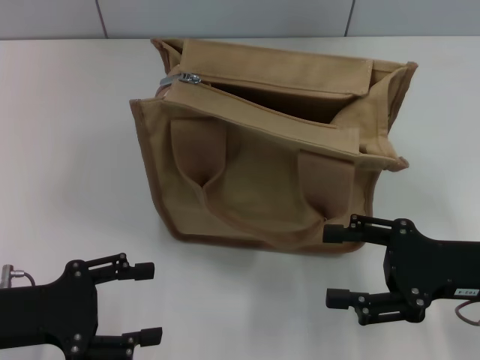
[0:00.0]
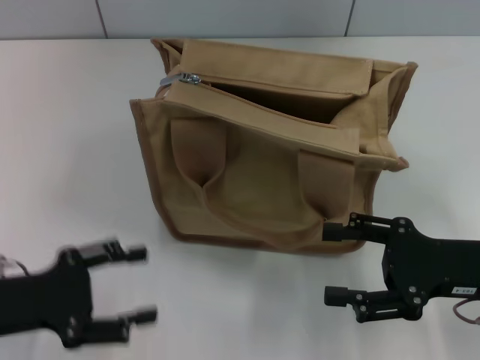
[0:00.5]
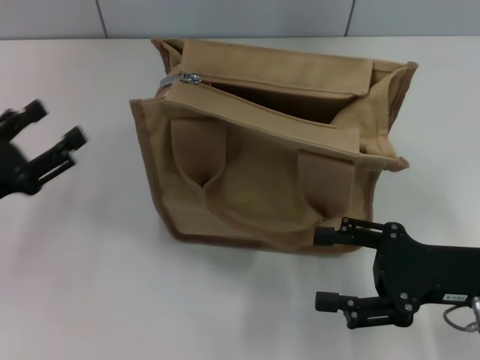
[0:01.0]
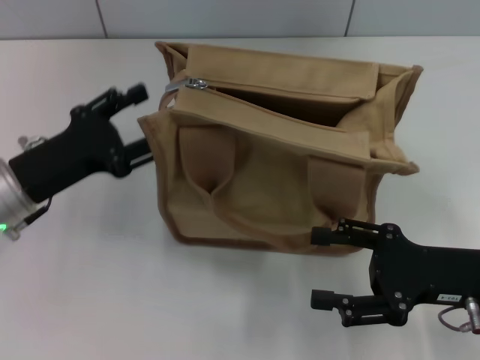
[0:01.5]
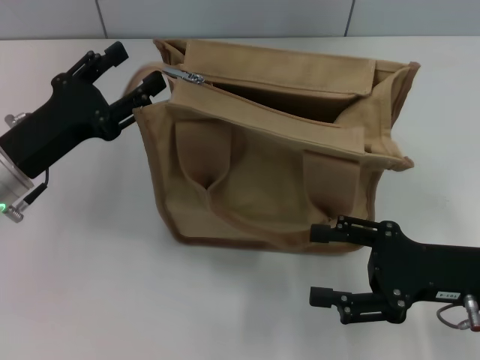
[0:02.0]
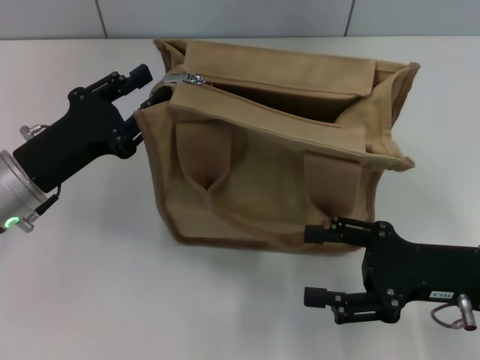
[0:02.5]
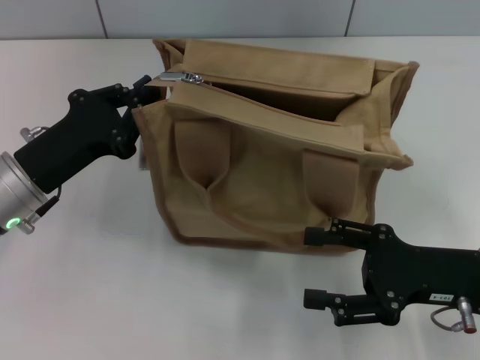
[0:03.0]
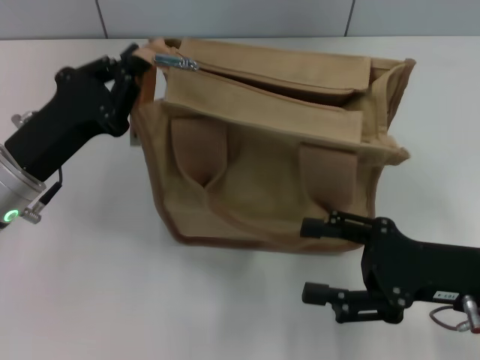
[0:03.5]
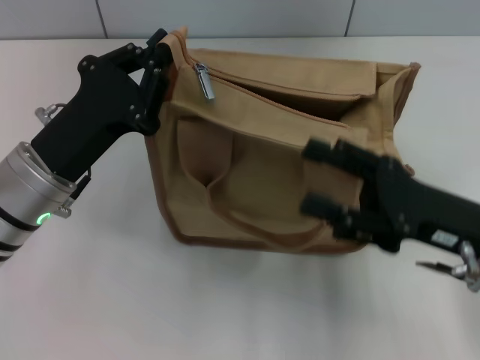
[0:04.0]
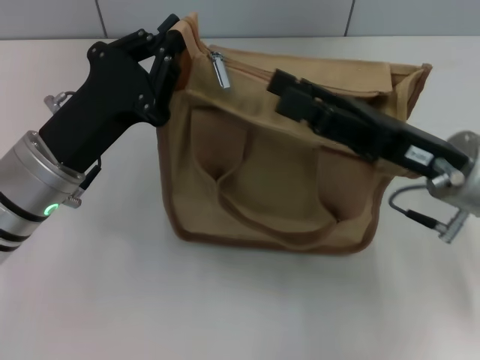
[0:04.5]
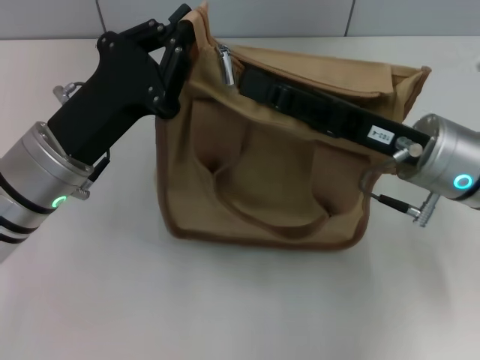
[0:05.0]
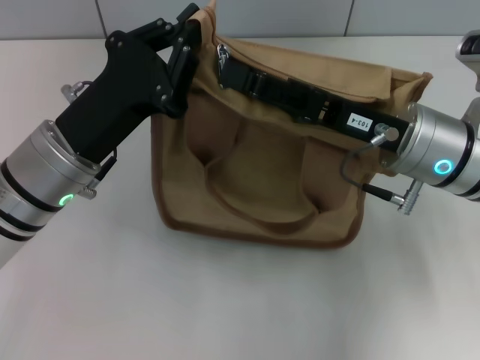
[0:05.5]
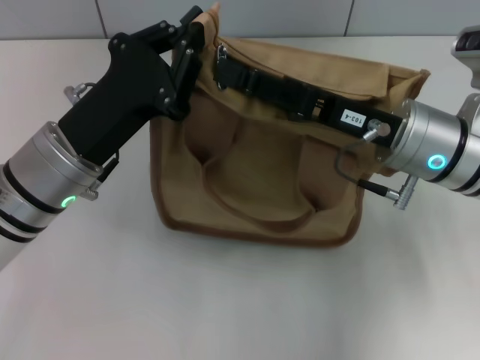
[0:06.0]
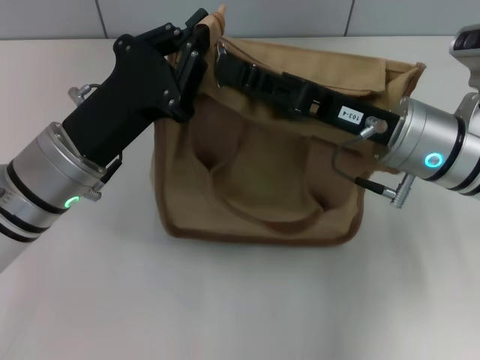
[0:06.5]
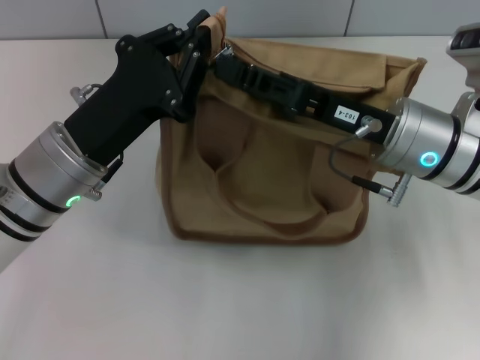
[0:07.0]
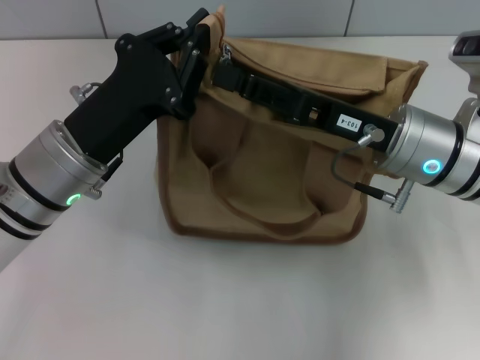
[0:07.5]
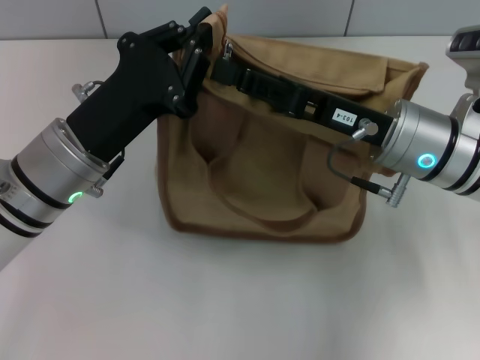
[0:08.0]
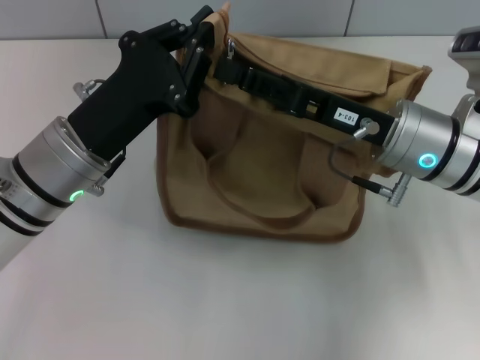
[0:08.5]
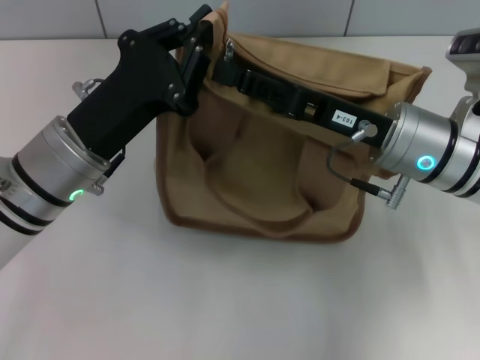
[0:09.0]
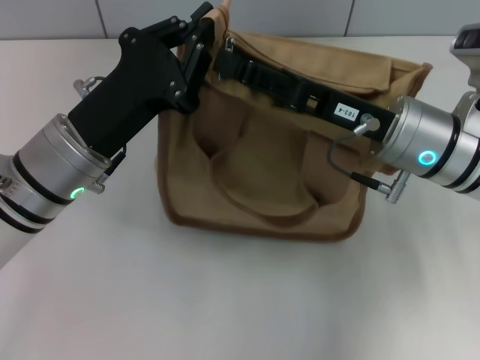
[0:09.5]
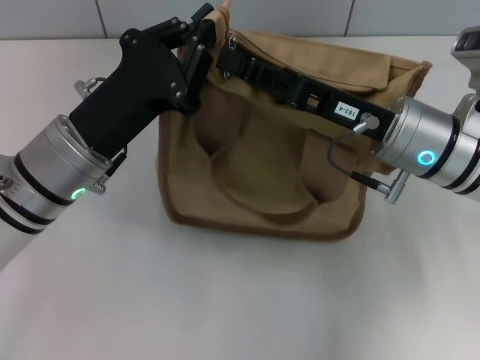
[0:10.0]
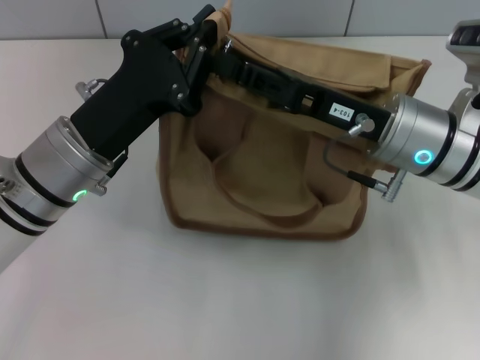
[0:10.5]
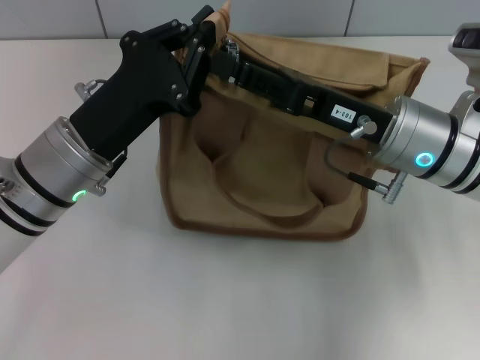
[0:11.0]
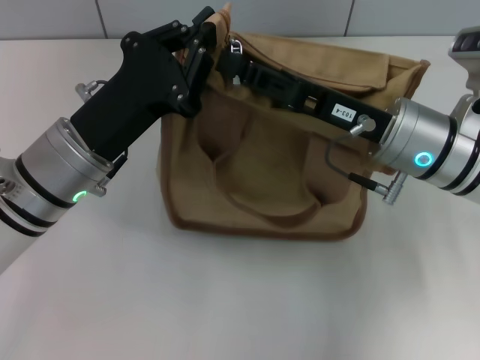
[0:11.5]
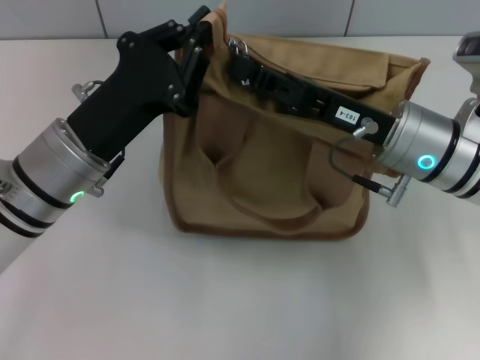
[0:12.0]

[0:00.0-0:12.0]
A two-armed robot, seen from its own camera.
0:00.0 to 0:02.0: The left gripper goes about 10 cm forward.
0:02.0 to 0:04.0: The left gripper closes.
0:04.0 to 0:06.0: The right gripper shifts approximately 10 cm forward and to the left.
0:06.0 to 0:08.0: The two grippers keep their place.
0:08.0 to 0:10.0: Both grippers stay about where they are.
0:10.0 to 0:12.0: The right gripper closes up.

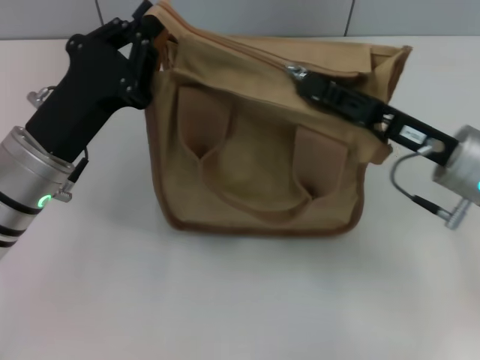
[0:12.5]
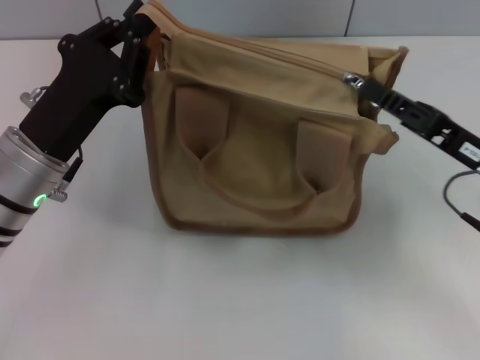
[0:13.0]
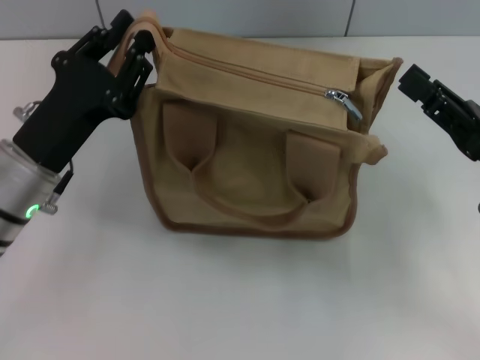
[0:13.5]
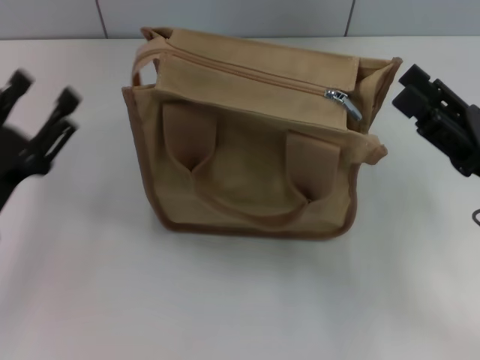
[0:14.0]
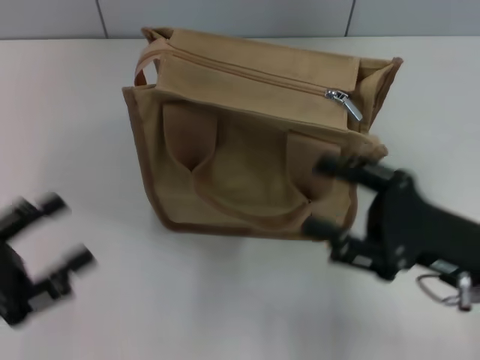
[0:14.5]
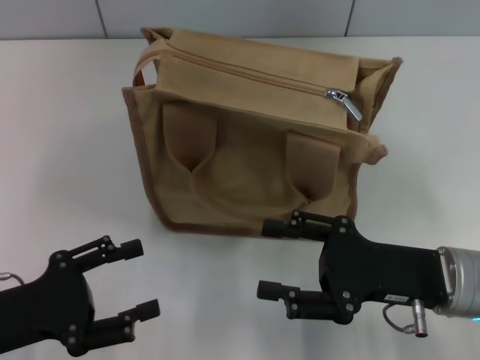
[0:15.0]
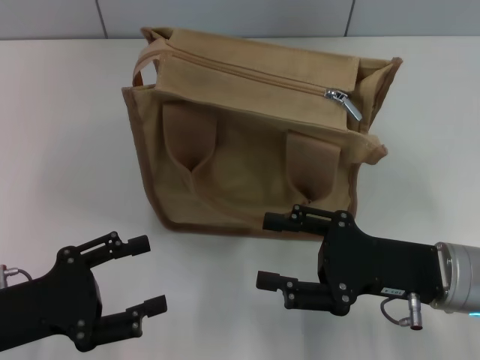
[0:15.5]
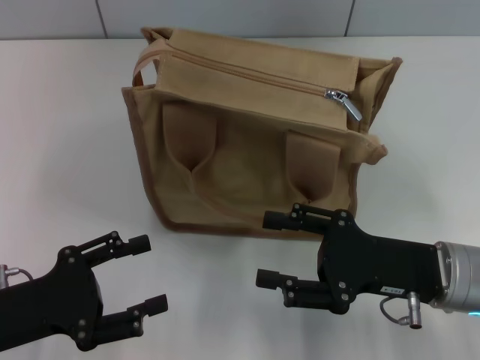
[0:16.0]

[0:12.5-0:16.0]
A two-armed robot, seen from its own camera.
0:12.5 to 0:14.5: The left gripper goes approximately 15 cm backward and to the left, and opens its fingers, while the right gripper heads backward, covering roughly 10 cm, and opens up.
0:14.5 to 0:16.0: The grippers make only small movements.

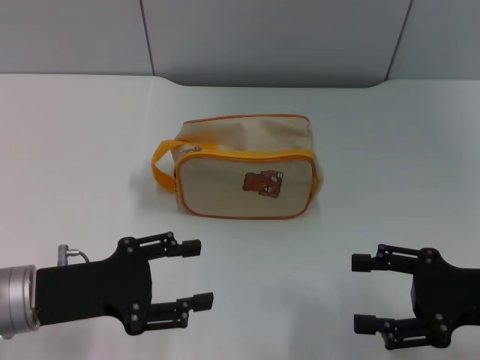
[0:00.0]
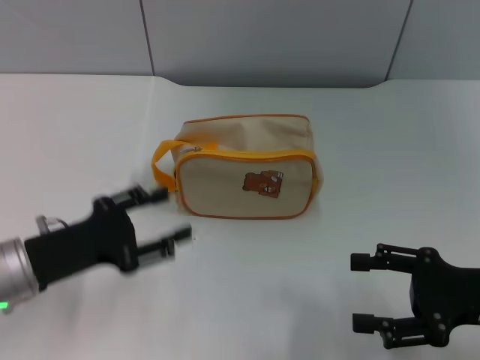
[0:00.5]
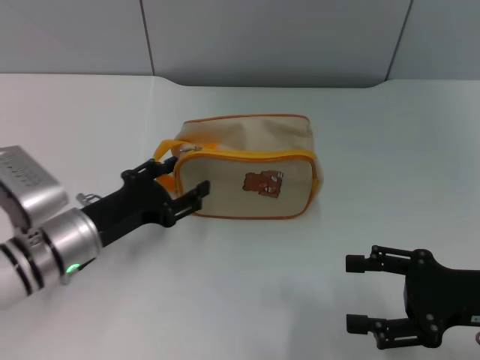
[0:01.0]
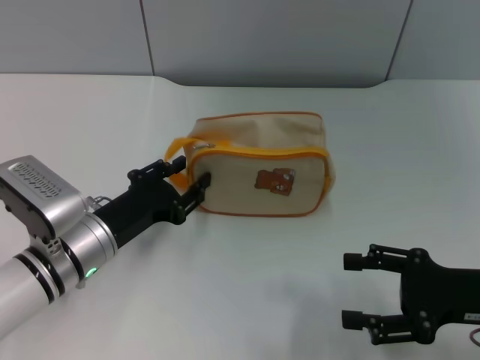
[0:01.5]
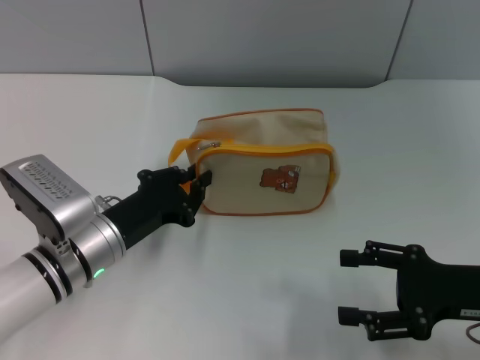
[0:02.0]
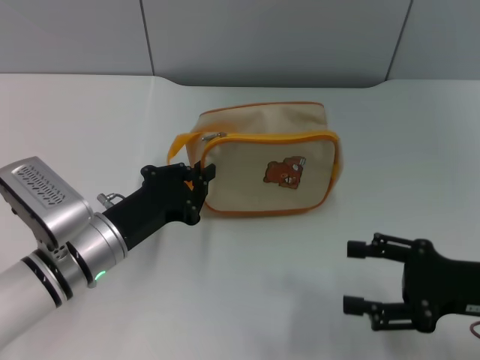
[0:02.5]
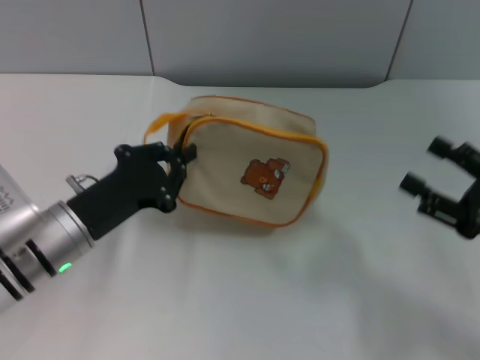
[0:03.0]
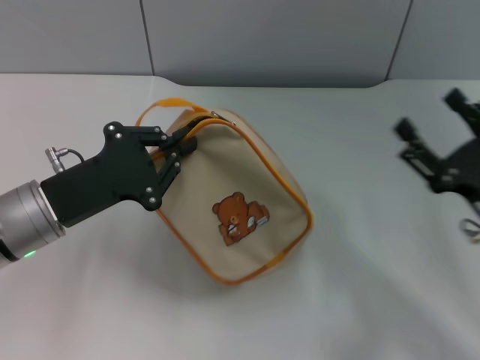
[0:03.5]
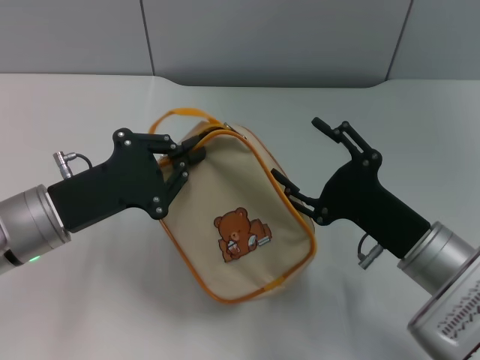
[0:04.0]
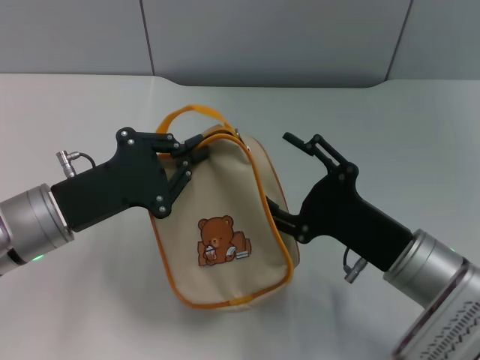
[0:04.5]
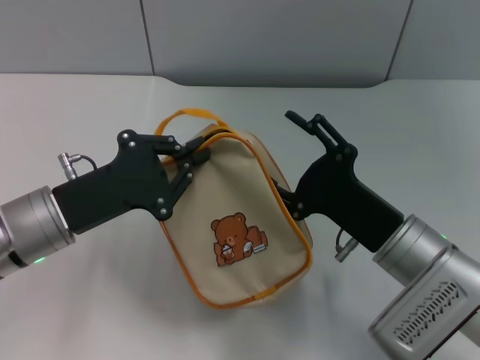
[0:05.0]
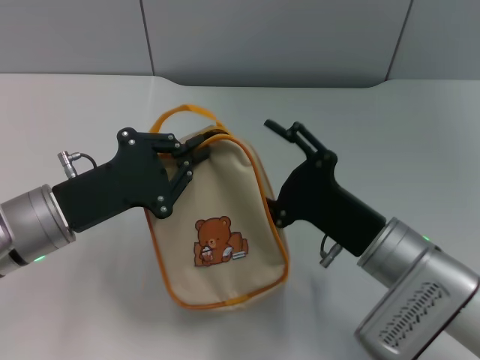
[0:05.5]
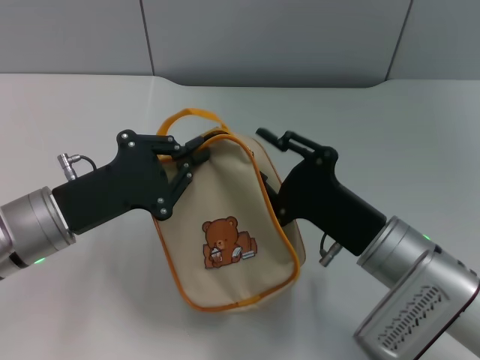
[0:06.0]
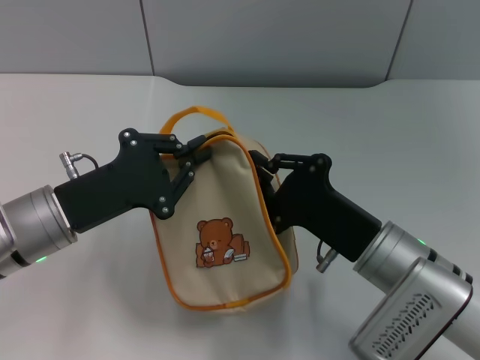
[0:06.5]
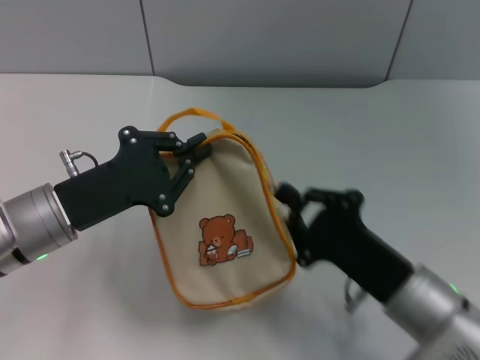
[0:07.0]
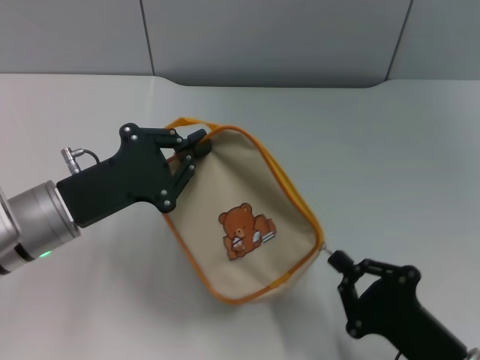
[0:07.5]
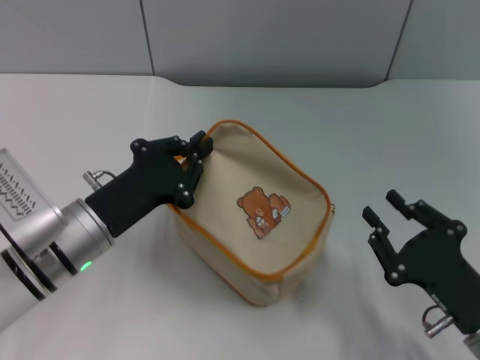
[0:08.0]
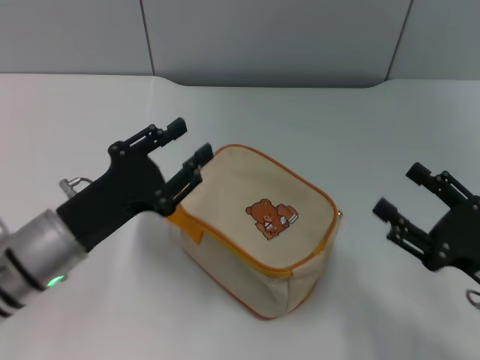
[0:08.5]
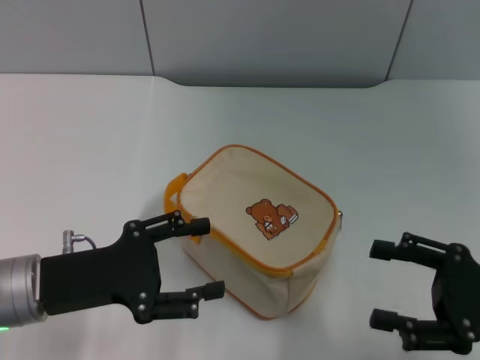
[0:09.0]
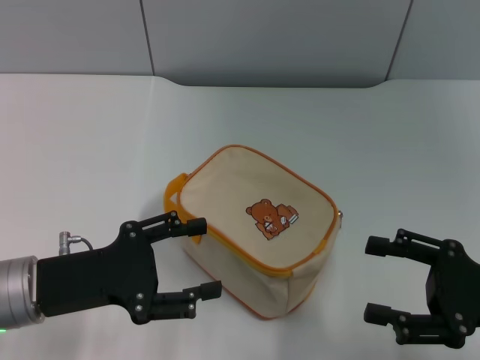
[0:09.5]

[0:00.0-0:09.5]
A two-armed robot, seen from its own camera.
Step, 0:00.0 to 0:03.0: Pick up the bag with left gripper.
Step, 0:03.5 to 0:07.5: Unzip the zipper of bag with right gripper.
0:00.0 to 0:02.0: The left gripper shifts some 10 cm to the right and forward, and closes.
0:02.0 to 0:04.0: The left gripper shifts some 5 cm upward; the right gripper goes roughly 10 cm to the left.
0:05.5 to 0:07.5: The right gripper goes about 15 cm backward, to the right and downward, and closes its fingers.
0:07.5 to 0:09.5: The left gripper is displaced backward by some 5 cm, and opens its fingers. The right gripper heads to the right, upward and forward, covering approximately 15 cm, and opens.
